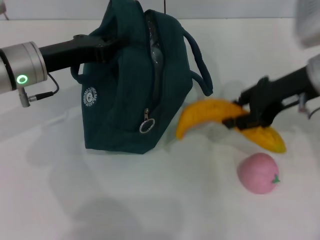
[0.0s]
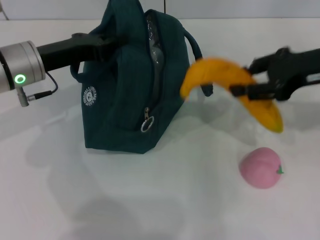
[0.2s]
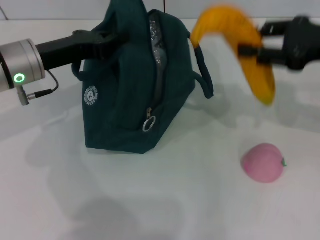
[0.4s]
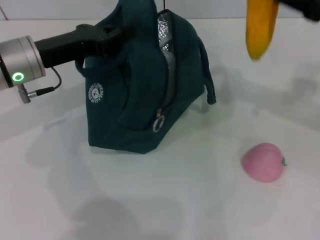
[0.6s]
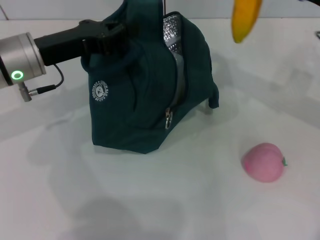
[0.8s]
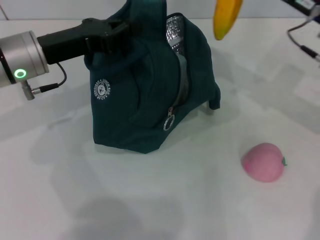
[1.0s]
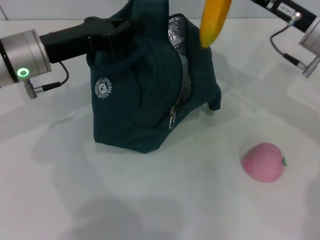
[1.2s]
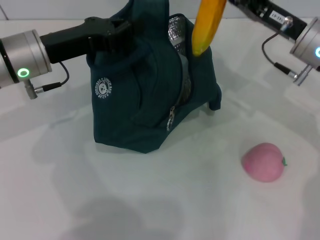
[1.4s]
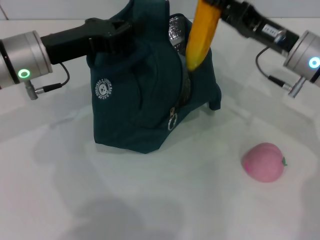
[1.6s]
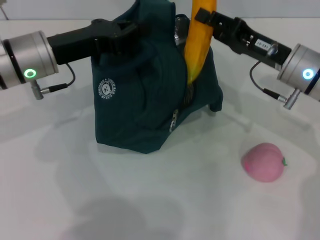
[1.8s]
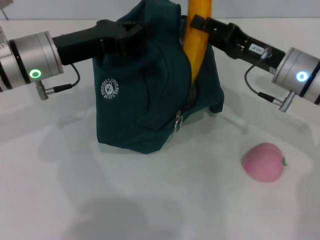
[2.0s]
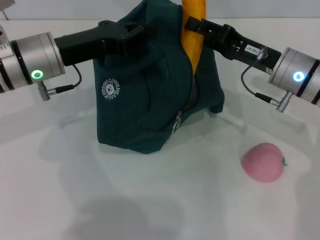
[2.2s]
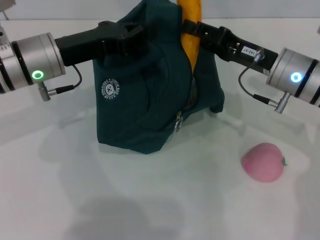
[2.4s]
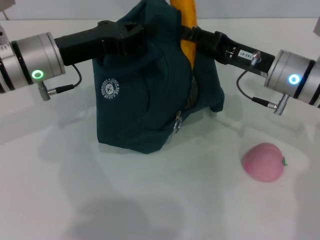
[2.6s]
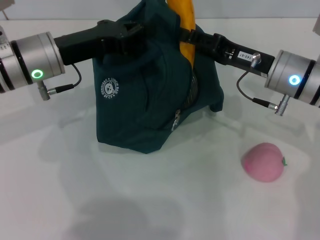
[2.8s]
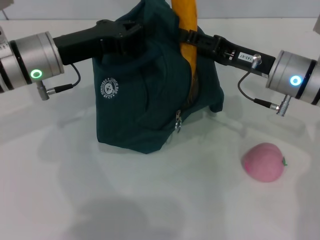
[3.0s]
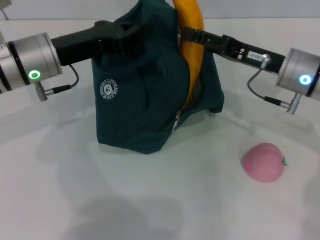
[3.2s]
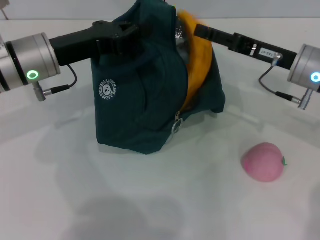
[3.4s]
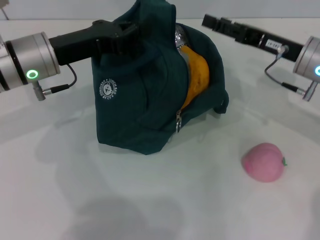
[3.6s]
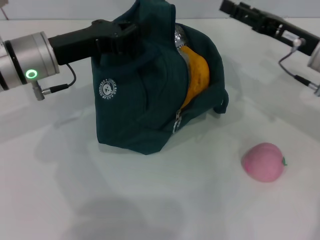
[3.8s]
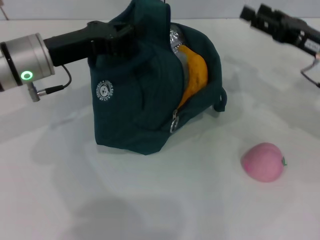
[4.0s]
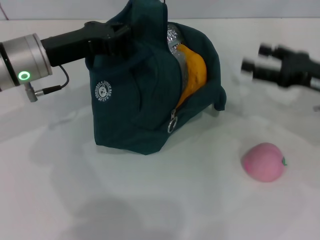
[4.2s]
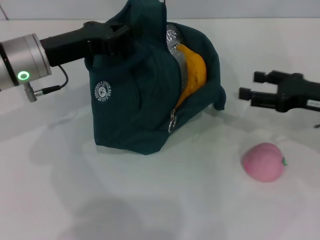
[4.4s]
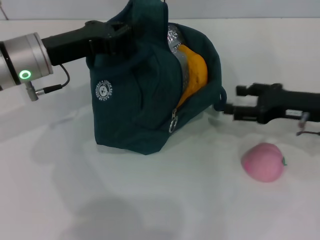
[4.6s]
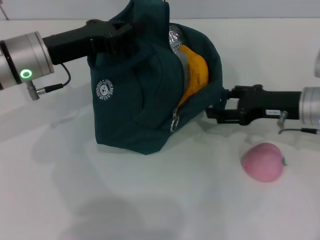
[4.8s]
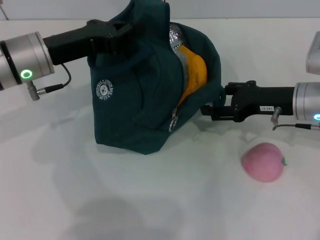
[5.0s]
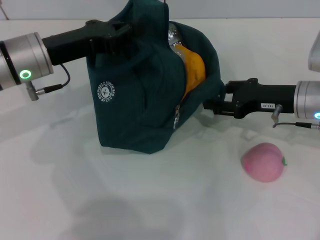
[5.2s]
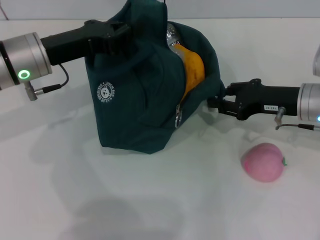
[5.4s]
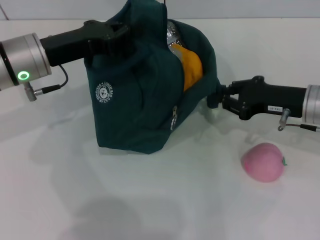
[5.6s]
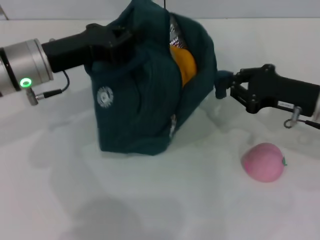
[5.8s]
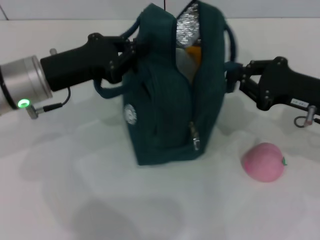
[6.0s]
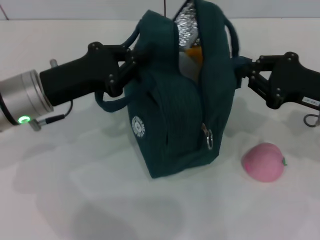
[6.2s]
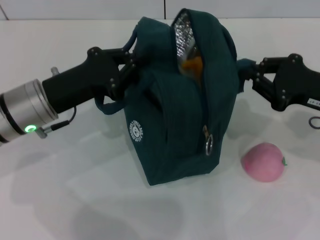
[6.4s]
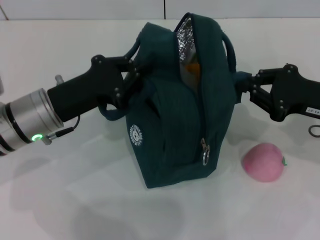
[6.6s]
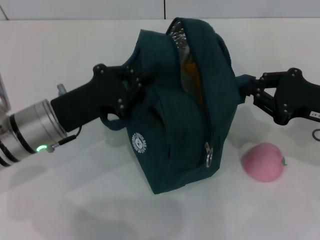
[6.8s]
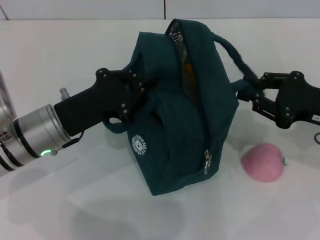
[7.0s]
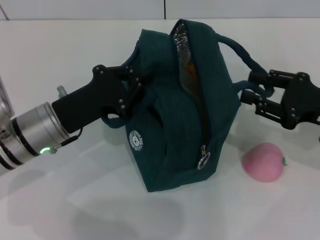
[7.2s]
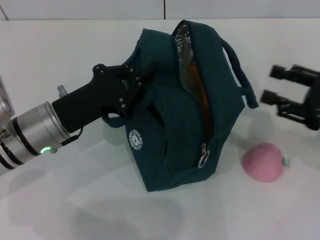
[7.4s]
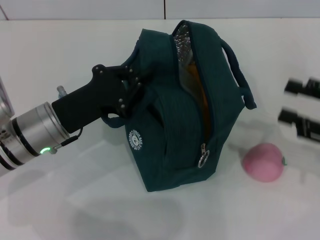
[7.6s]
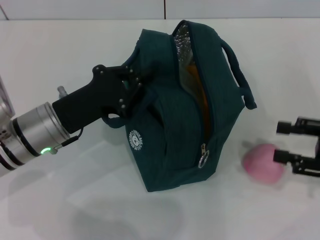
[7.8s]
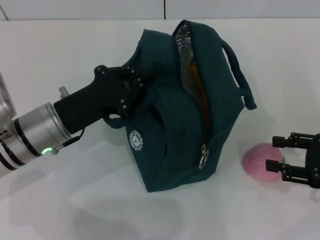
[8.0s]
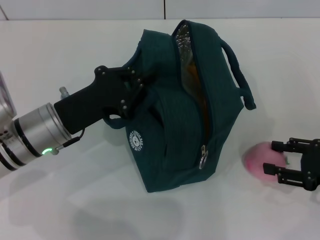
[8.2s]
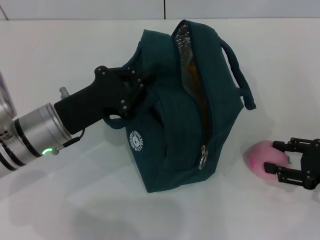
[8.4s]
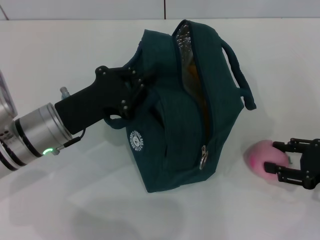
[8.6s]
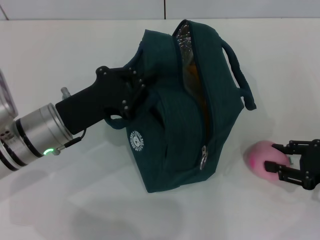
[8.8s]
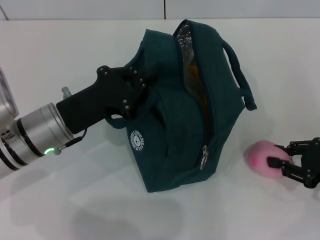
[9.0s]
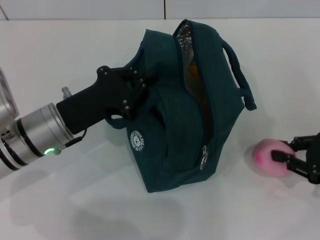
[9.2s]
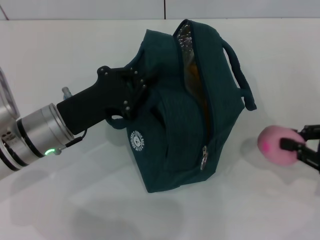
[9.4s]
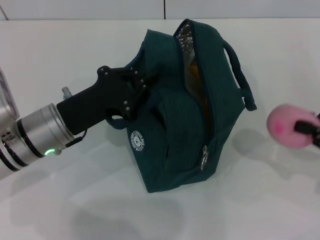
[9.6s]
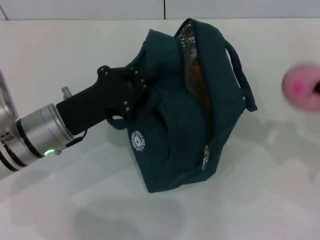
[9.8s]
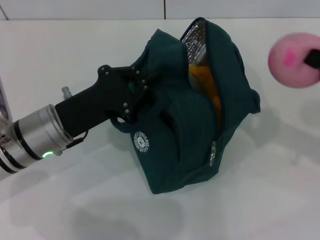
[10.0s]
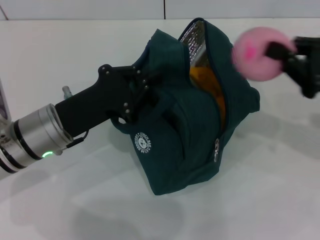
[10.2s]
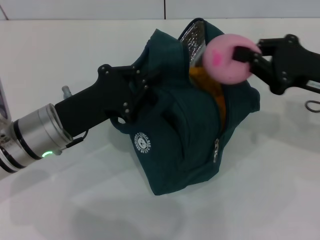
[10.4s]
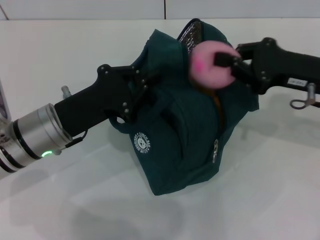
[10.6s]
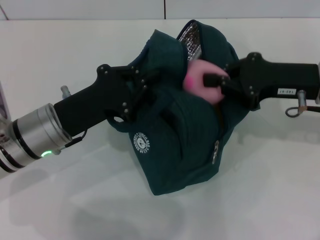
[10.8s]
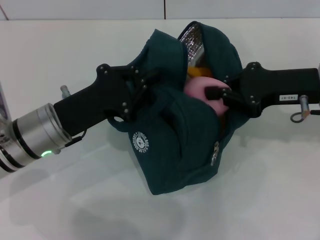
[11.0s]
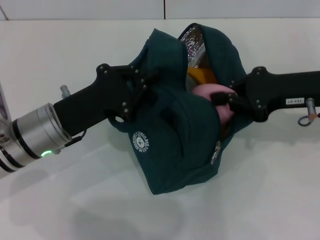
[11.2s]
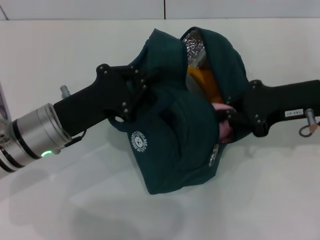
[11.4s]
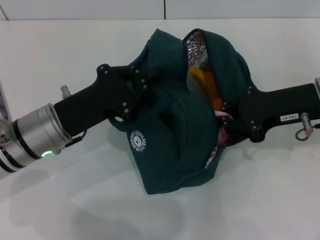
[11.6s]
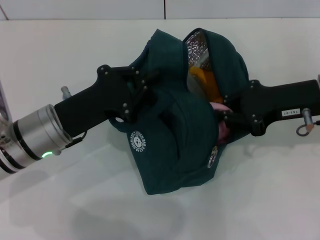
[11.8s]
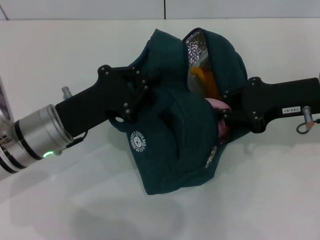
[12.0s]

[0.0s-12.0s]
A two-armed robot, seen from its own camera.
Step, 0.0s to 3.4s: Put the banana into the lunch bag with your right hand.
Step, 3.6s to 8.6s: Grab the peach with your right hand.
0.0s to 1.6s: The right gripper shifts some 5 cm downward.
1.6s to 3.0s: The grippers stay close to where they were, moving slightly.
3.0s to 4.4s: The right gripper heads to the right, covering approximately 10 cm.
4.4s to 6.0s: The right gripper closes its fingers.
6.0s to 7.6s: The right gripper heads to the right and backward, covering approximately 10 cm, and opens up. Meanwhile the left gripper heads downward, covering about 5 cm.
7.6s to 9.0s: The right gripper goes approximately 5 cm downward.
9.0s to 10.4s: The right gripper goes about 10 cm upward, to the left and forward, and closes its fingers.

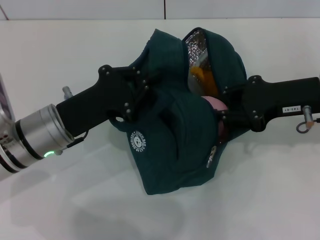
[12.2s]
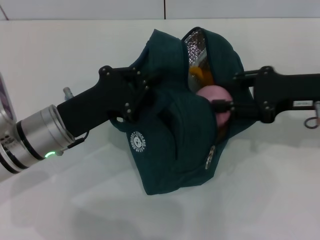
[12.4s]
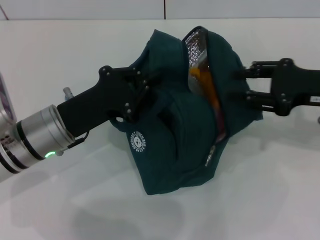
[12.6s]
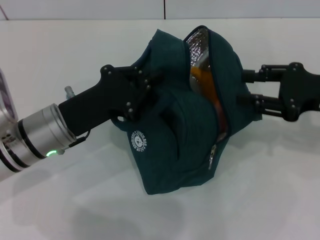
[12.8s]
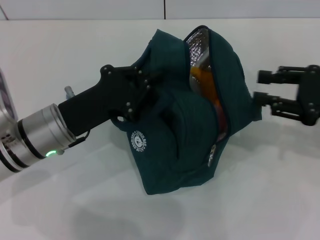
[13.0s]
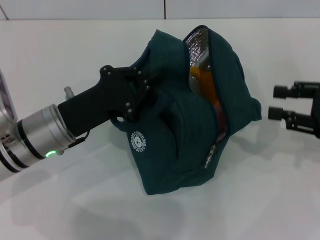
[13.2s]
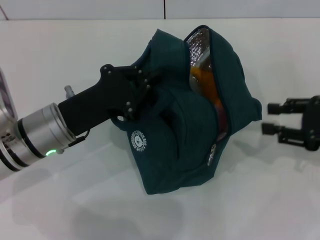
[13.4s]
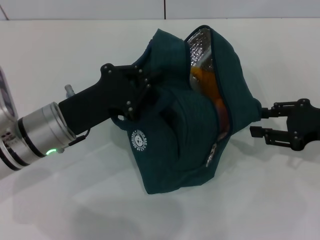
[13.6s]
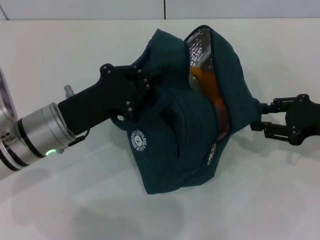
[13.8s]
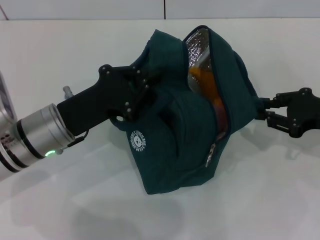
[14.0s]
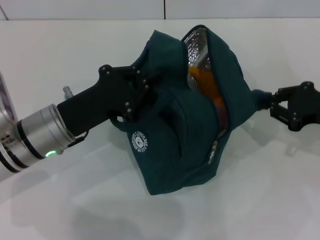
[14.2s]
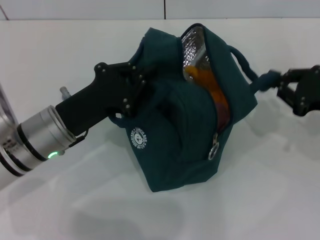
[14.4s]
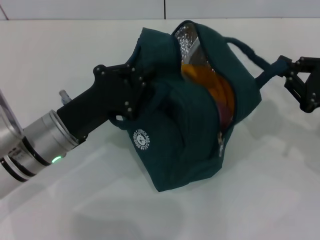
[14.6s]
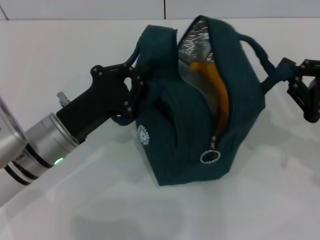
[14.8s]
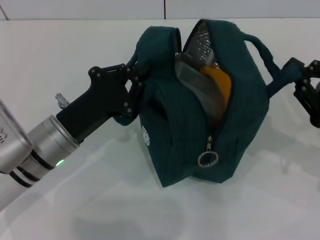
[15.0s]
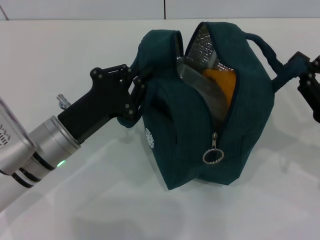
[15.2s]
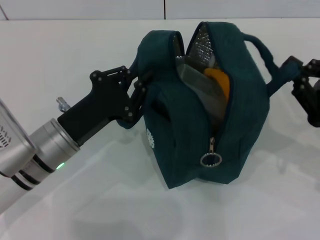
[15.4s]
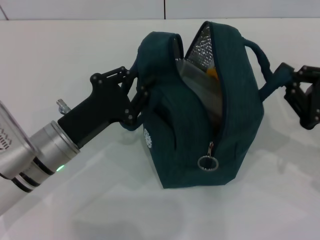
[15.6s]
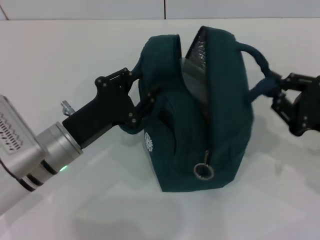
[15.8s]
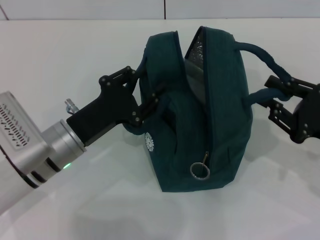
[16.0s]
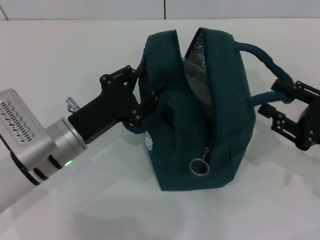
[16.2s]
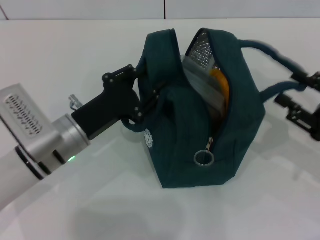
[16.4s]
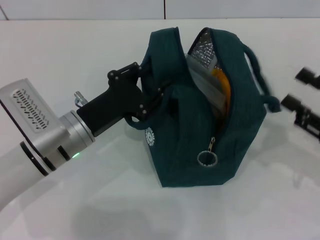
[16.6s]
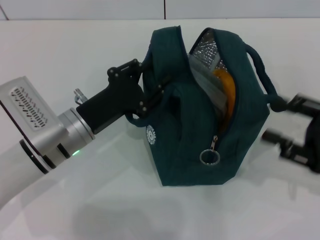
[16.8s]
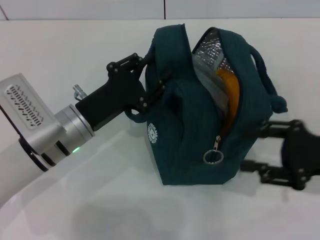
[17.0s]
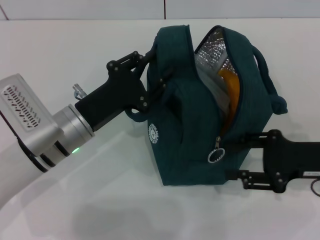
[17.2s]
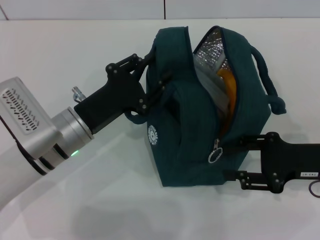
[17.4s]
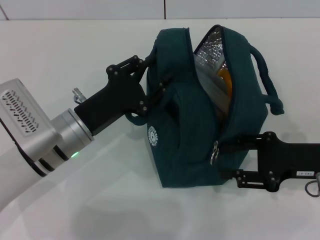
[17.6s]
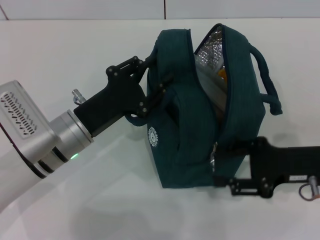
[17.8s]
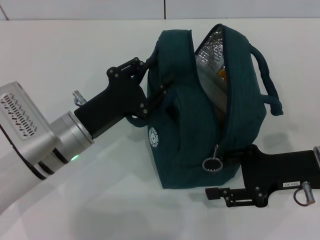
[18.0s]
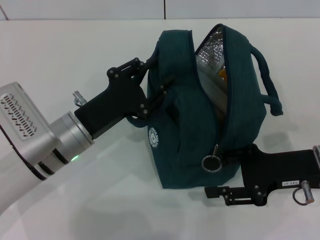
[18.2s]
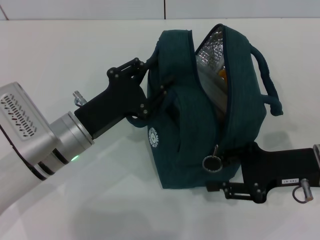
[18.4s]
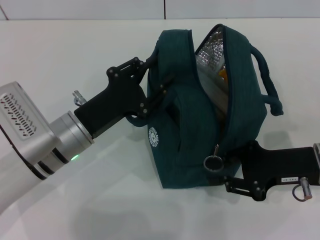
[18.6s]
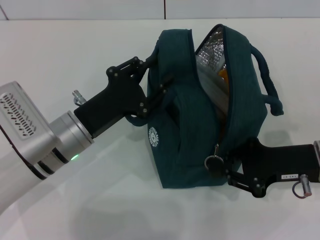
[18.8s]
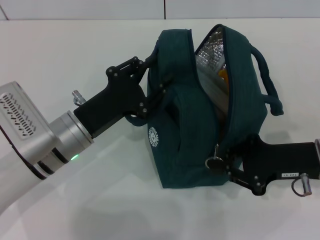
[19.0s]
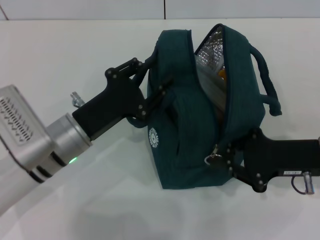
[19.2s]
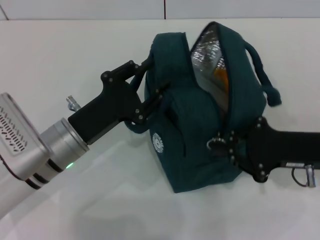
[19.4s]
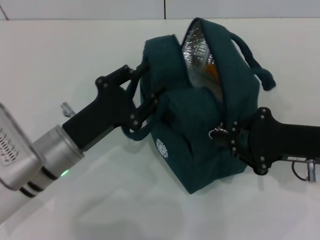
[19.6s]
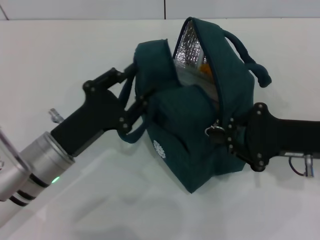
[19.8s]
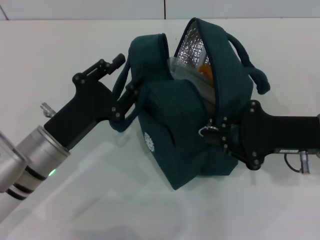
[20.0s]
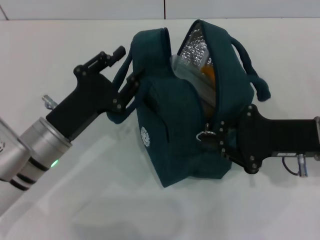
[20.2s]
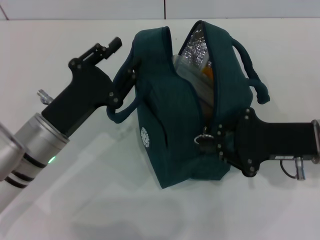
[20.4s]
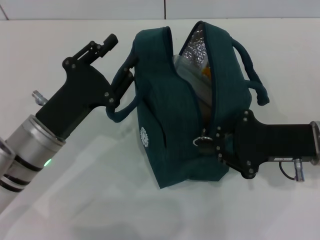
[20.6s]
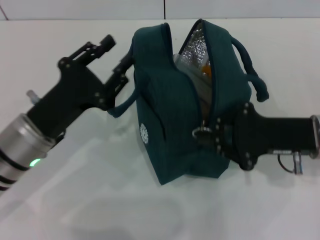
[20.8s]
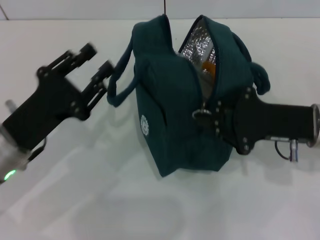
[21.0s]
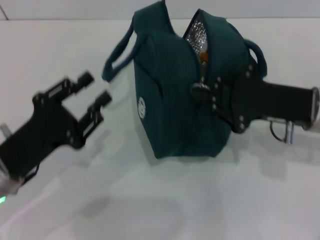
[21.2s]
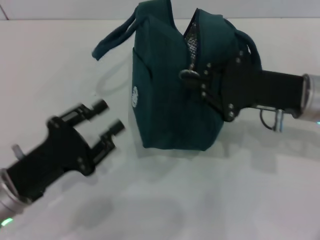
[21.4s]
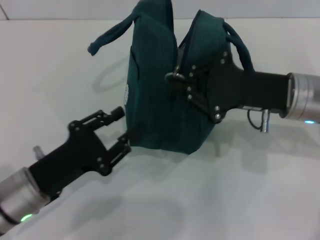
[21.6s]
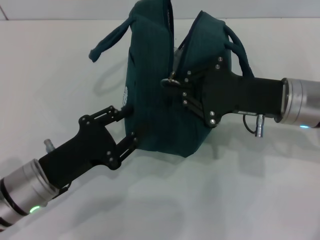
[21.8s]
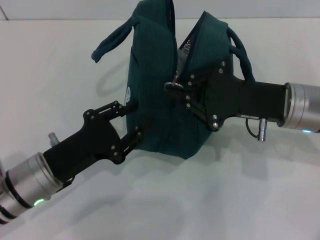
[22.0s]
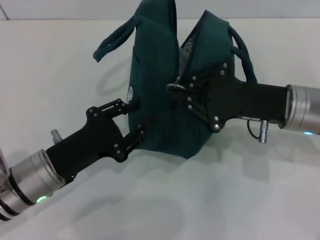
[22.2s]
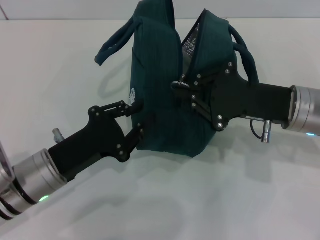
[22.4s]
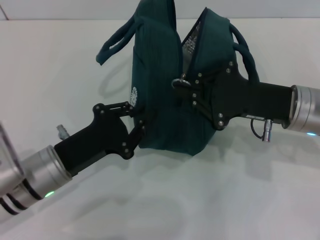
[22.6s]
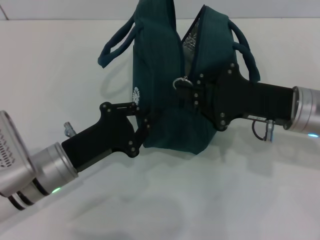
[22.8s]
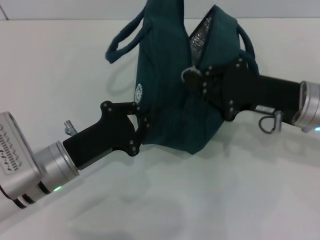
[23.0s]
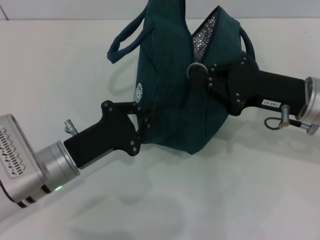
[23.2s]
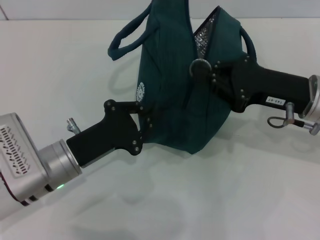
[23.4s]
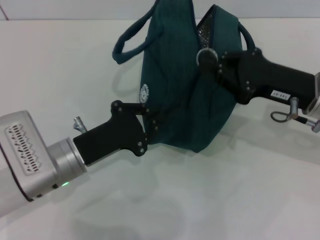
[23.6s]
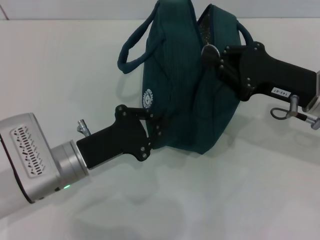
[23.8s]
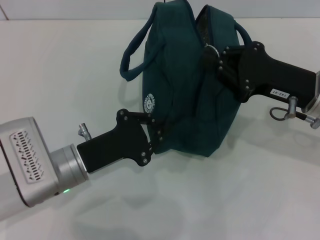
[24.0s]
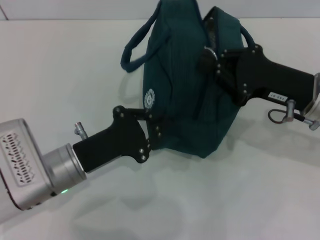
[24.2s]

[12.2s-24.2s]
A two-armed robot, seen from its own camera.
Step, 12.8s to 16.2s: Hold the lunch bag with your right hand.
Step, 16.6s to 19.8s: Hold the lunch bag with your left hand.
12.2s to 13.8s: The right gripper moves to the right, about 5 cm.
13.8s to 15.2s: The right gripper moves backward, some 5 cm, and closes.
15.2s to 16.6s: The right gripper opens, while the left gripper opens.
16.6s to 18.2s: The right gripper shifts about 10 cm to the left.
18.2s to 19.8s: The right gripper closes.
19.8s to 21.2s: The left gripper goes roughly 5 cm to the left.
21.2s to 22.6s: The left gripper changes place by about 5 cm.
